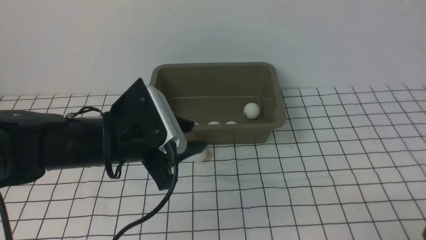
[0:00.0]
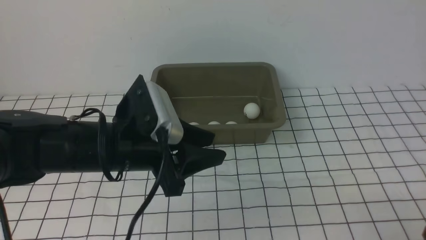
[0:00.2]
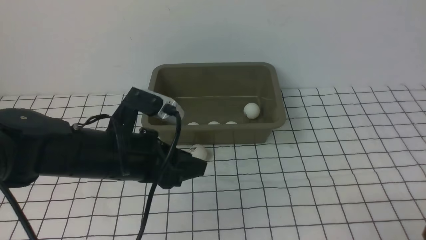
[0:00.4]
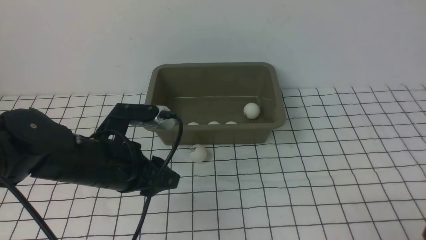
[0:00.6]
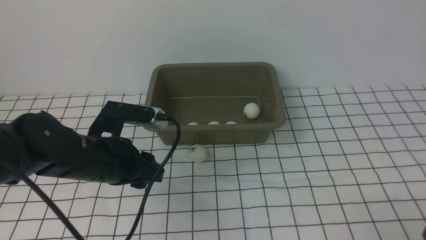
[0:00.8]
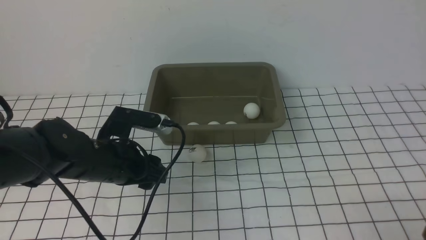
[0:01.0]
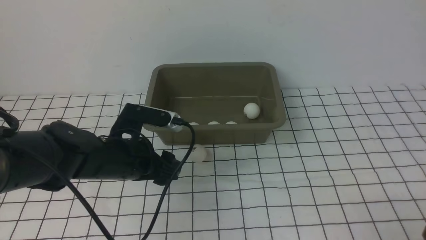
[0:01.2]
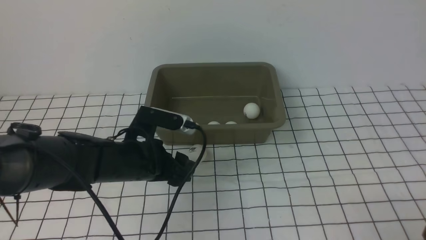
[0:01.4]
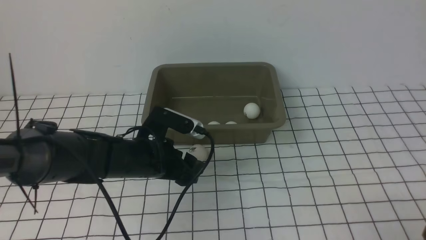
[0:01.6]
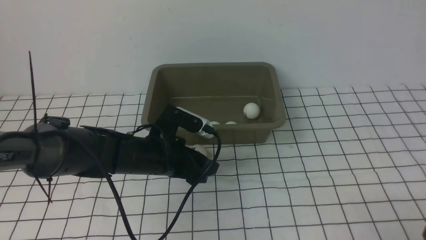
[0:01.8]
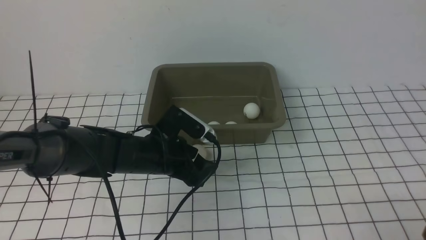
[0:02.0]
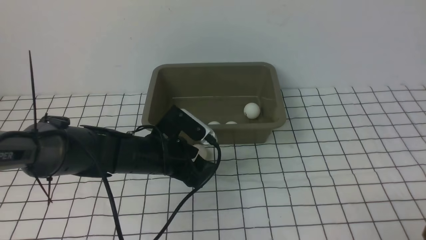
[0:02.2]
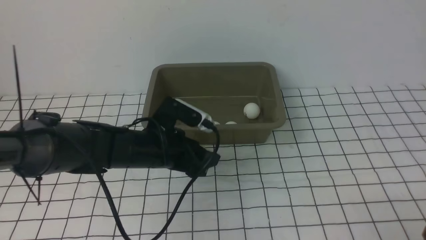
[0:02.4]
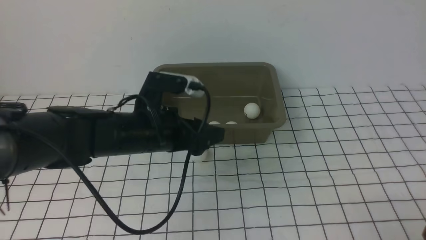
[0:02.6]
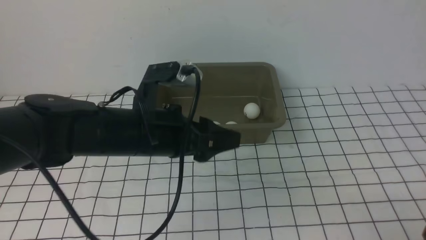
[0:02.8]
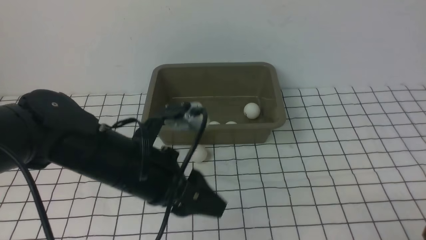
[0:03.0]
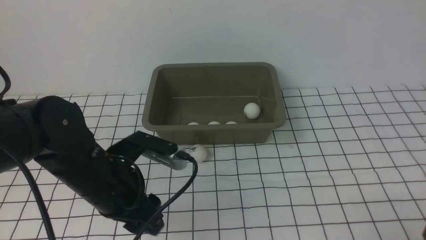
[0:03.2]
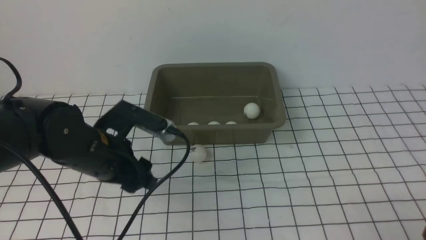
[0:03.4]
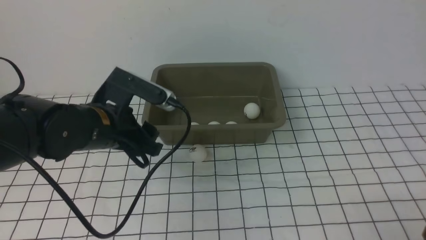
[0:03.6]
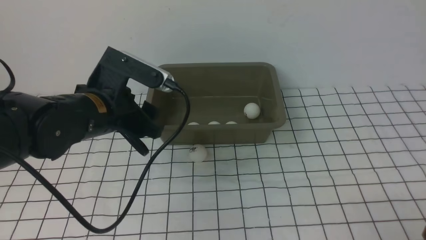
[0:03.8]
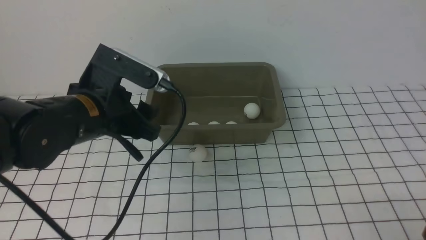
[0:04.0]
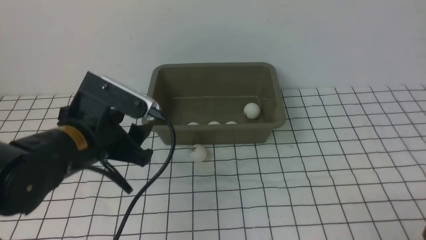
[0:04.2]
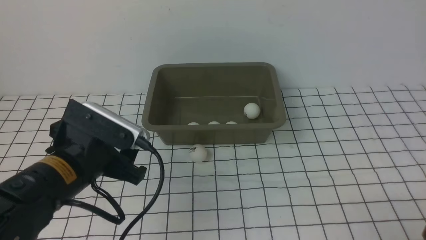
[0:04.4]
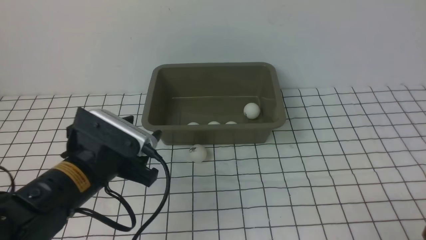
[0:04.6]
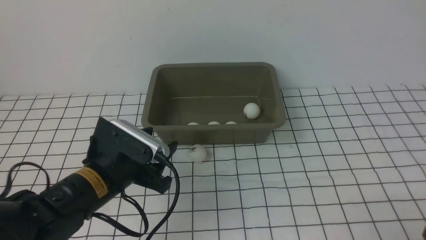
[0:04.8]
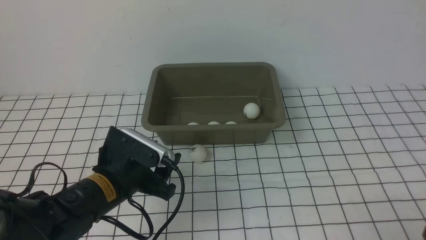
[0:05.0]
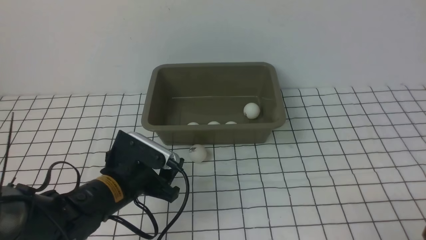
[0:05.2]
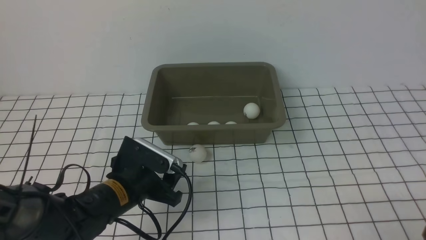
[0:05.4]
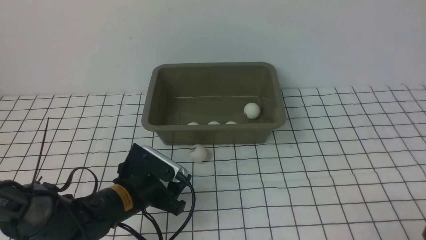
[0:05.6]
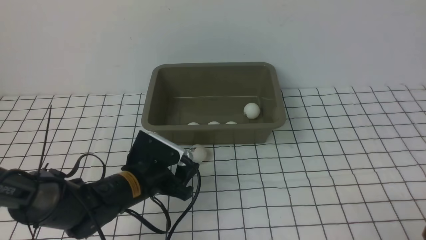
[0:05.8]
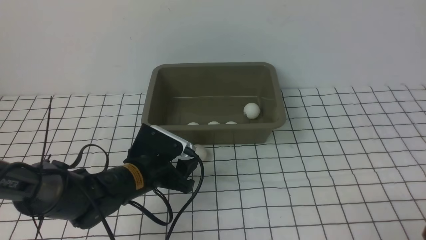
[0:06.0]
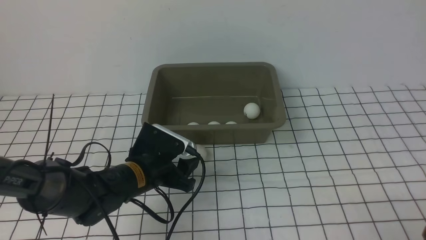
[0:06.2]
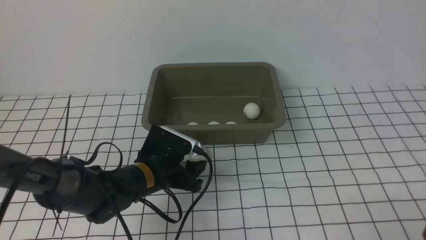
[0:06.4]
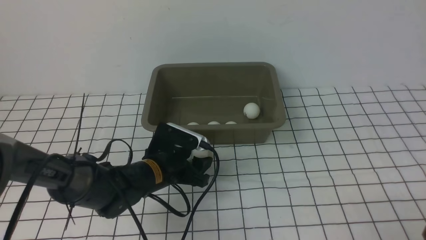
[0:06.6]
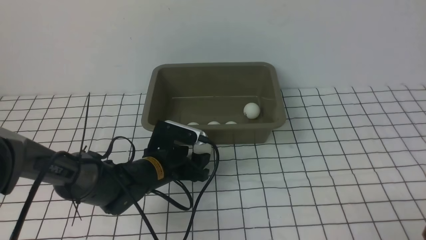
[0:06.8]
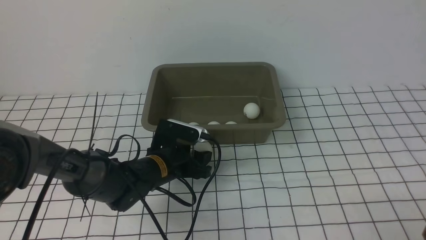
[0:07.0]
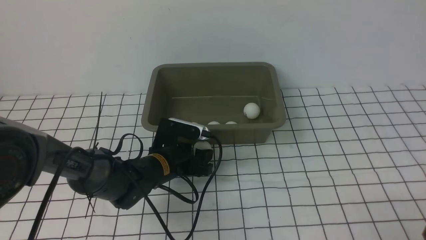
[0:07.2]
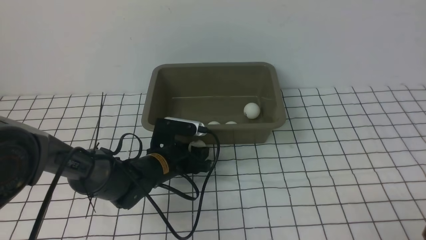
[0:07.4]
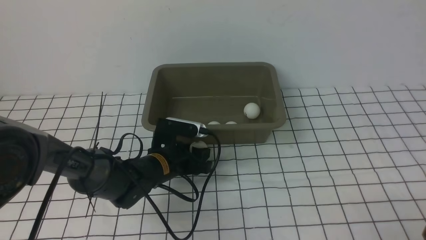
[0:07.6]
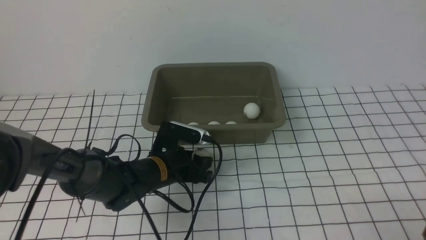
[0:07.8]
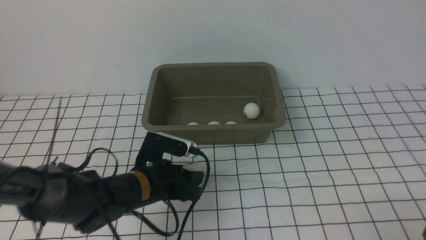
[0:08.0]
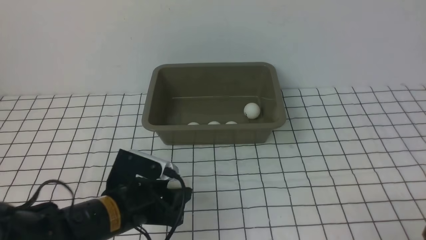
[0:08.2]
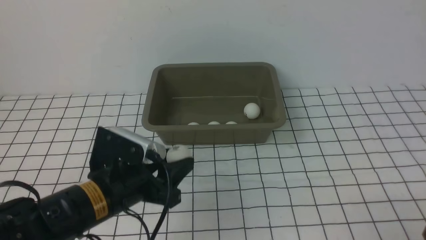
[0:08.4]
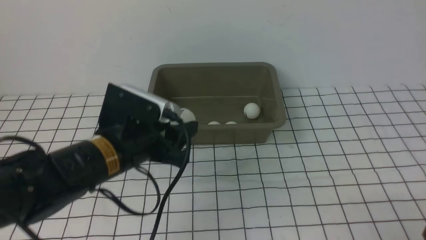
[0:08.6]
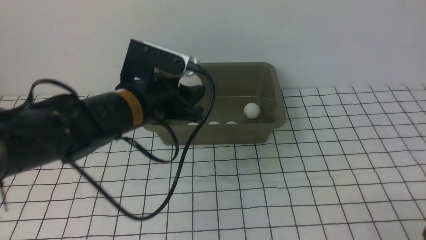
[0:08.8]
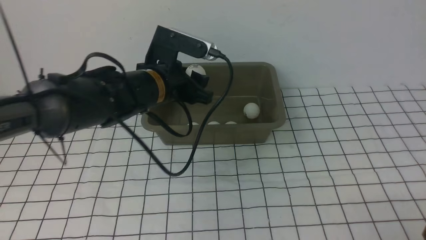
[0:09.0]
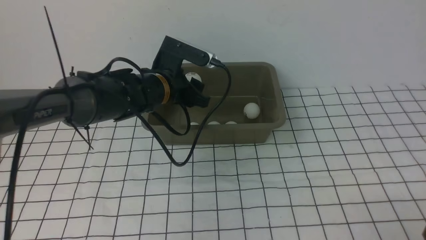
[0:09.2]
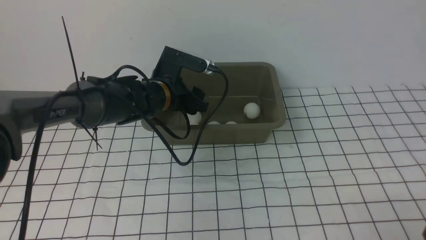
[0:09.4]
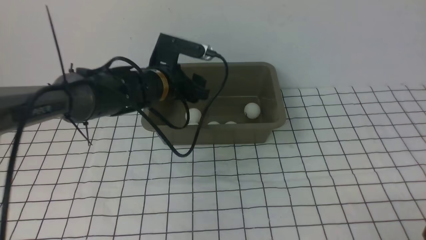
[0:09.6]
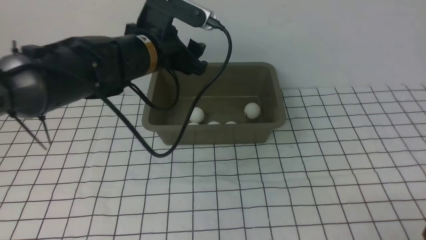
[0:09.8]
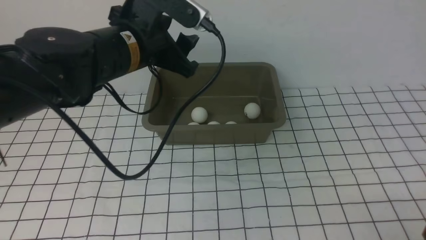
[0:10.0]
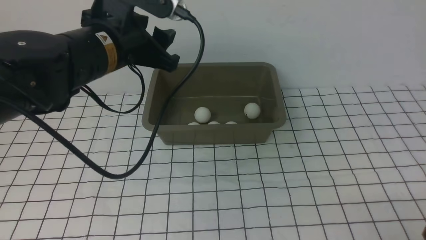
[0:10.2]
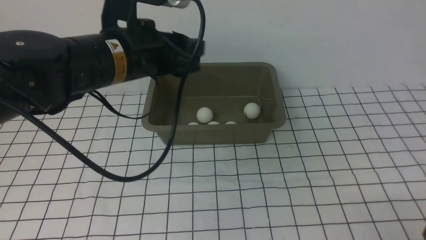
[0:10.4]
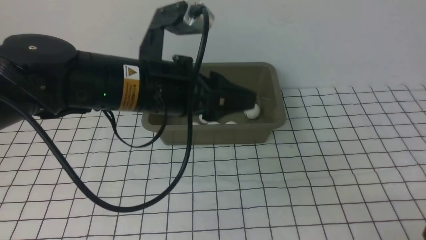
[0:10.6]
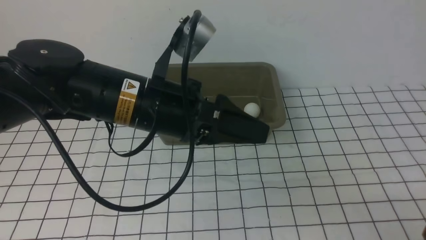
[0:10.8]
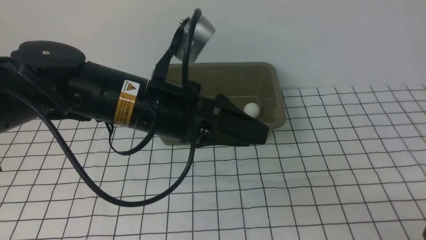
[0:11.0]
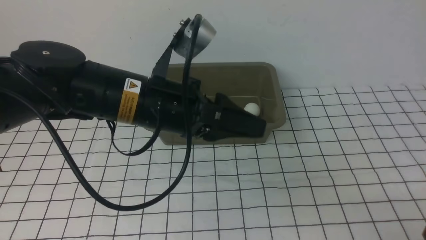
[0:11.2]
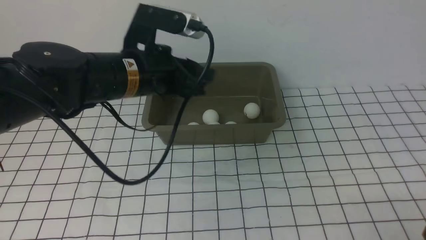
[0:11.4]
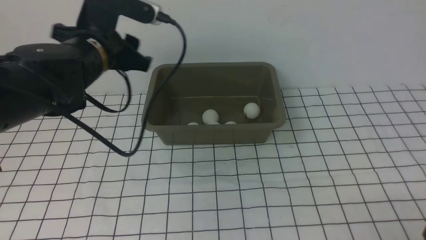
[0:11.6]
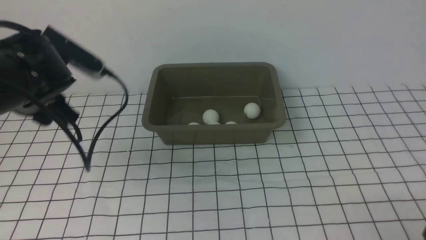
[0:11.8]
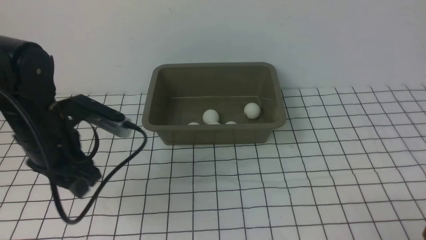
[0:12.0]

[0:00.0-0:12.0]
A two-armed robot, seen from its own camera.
Step, 0:00.0 to 0:07.8: use the left arm to clamp the table tennis ball closest to it.
Step, 0:08.0 to 0:09.6: use the left arm to put the table tennis ball into the box.
0:00.0 to 0:01.6: The left gripper goes about 10 cm downward, and opens.
0:01.6 to 0:03.0: The left gripper heads upward and backward, covering some 10 cm.
0:03.0 to 0:04.4: The left gripper heads to the left, covering some 5 cm.
0:04.4 to 0:06.0: The left gripper is displaced downward by about 10 cm.
0:06.0 to 0:07.6: The left gripper heads forward, covering approximately 5 cm.
0:07.6 to 0:09.0: The left gripper shifts about 15 cm upward.
0:09.0 to 0:10.4: The left gripper goes approximately 10 cm upward, and opens, then closes once more.
0:10.4 to 0:12.0: The left gripper heads to the left and downward, covering some 15 cm.

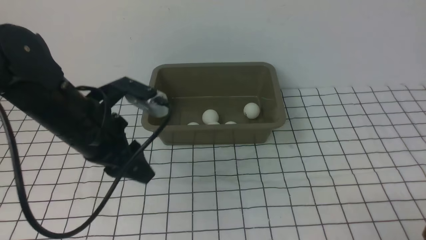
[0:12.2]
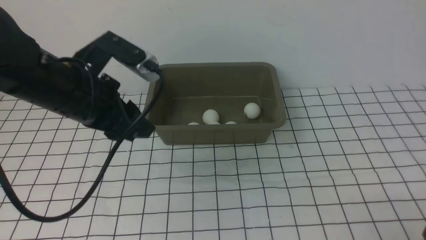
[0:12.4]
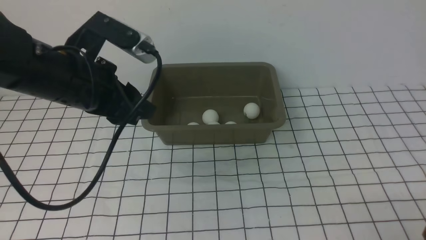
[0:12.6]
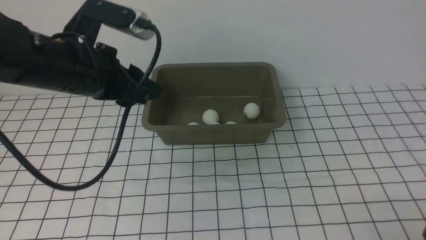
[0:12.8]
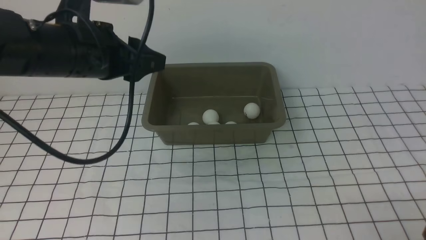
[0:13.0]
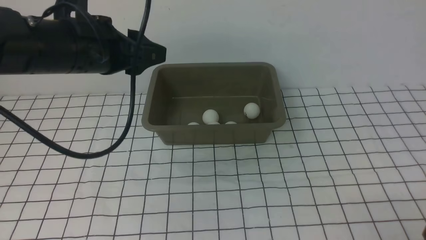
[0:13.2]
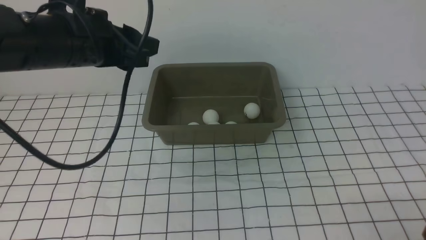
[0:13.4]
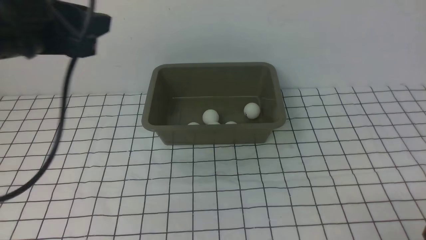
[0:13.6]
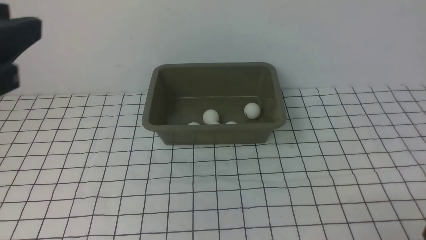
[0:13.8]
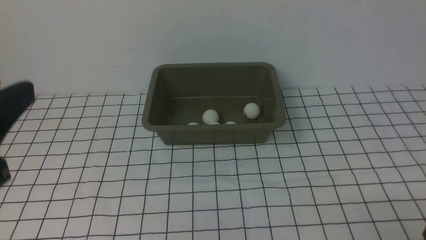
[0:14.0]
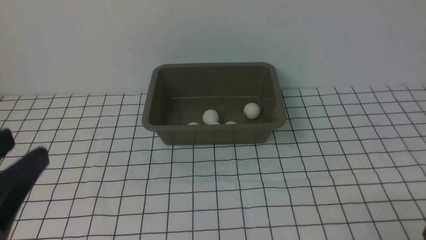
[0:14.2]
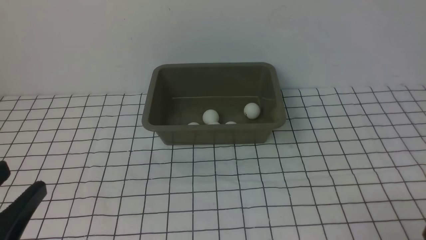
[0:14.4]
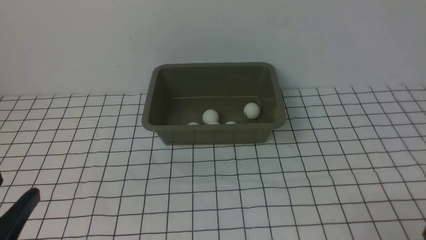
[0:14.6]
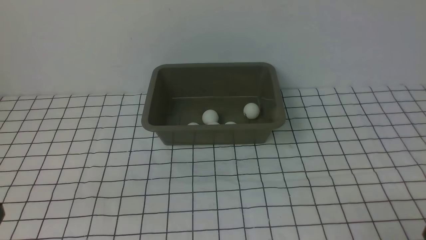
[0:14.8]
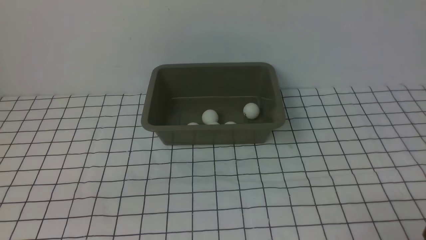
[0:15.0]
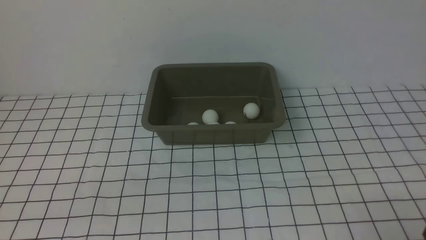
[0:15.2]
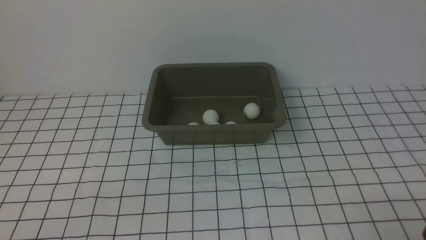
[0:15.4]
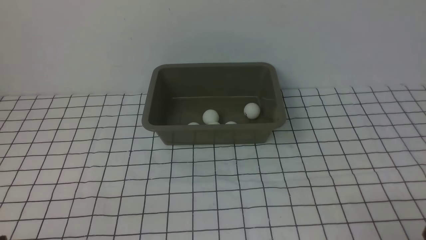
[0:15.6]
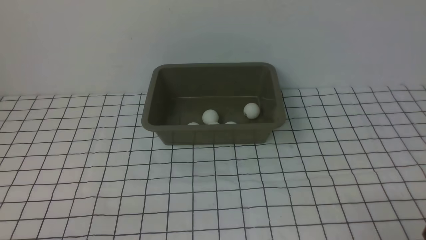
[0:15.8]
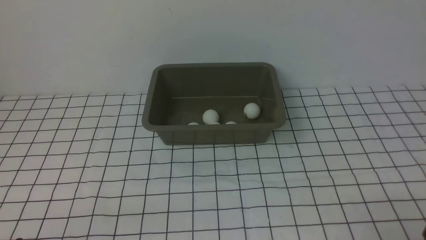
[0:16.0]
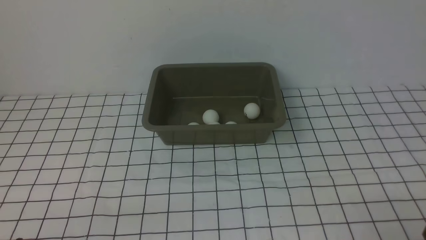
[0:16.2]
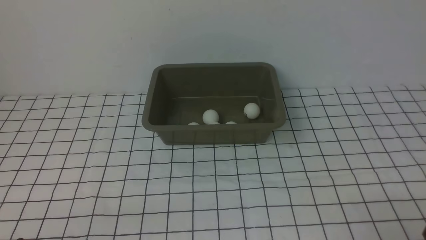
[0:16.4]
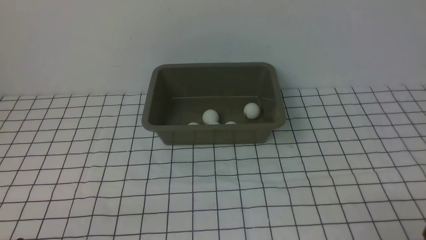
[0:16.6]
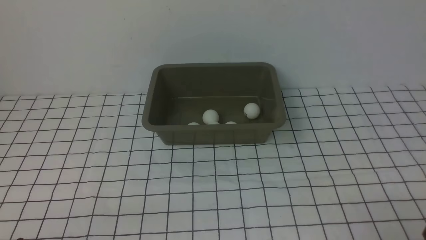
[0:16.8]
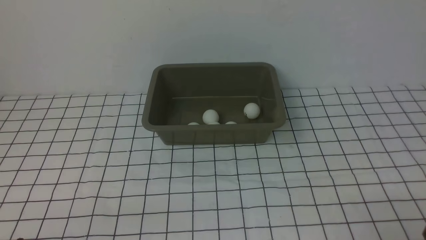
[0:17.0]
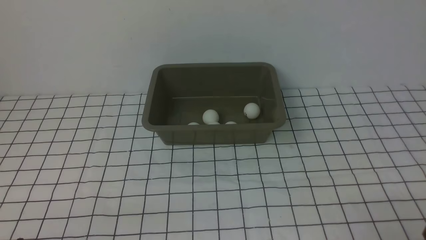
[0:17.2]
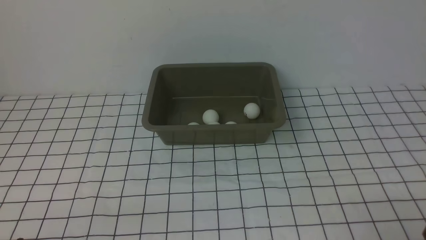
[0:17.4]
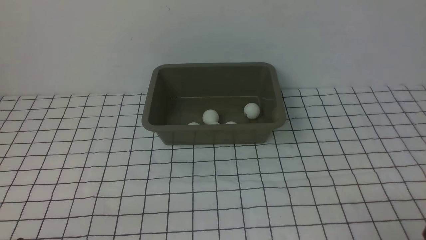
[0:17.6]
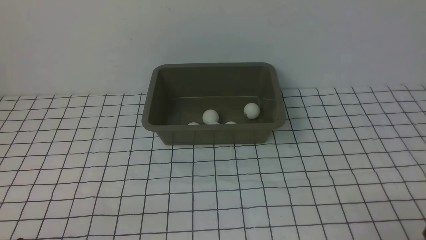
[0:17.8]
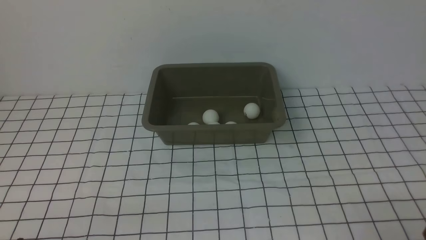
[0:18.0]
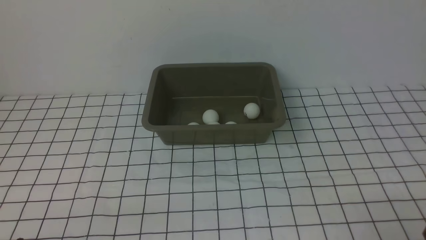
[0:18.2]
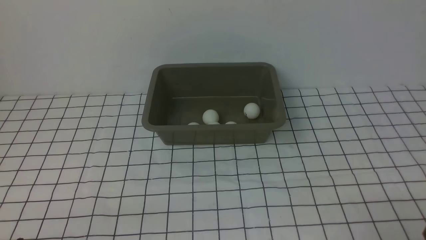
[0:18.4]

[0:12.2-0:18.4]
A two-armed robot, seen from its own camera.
0:12.2 to 0:13.8: The left gripper travels upward and backward by approximately 15 cm.
0:13.8 to 0:15.4: The left gripper heads downward and backward, covering about 25 cm.
0:16.8 to 0:18.4: Both grippers stay put.
